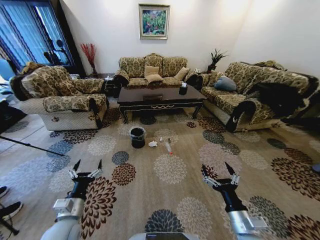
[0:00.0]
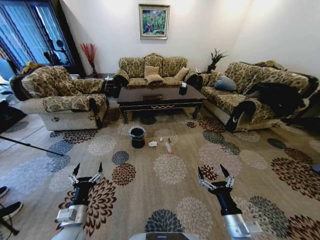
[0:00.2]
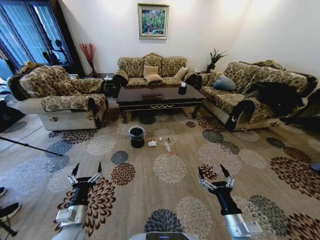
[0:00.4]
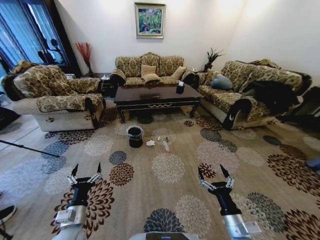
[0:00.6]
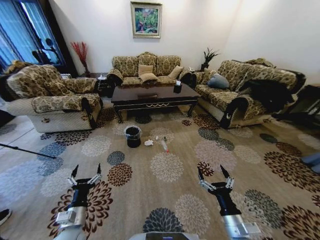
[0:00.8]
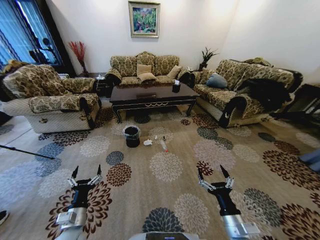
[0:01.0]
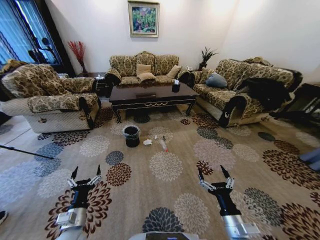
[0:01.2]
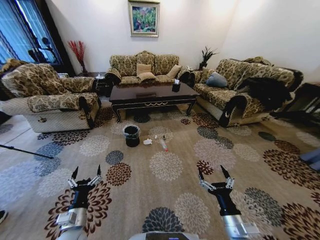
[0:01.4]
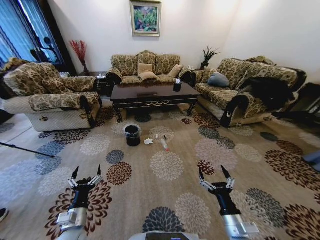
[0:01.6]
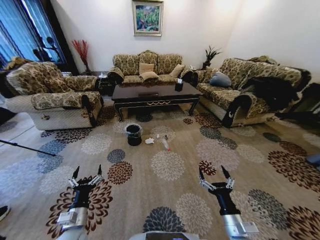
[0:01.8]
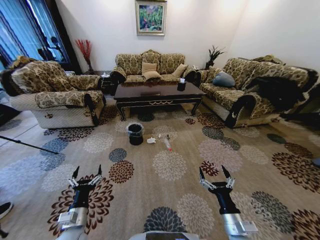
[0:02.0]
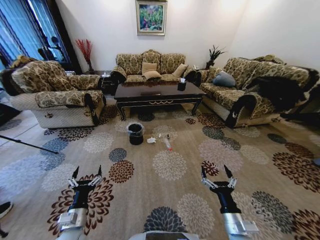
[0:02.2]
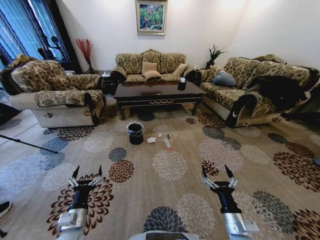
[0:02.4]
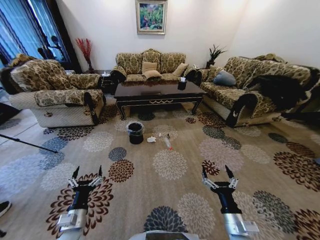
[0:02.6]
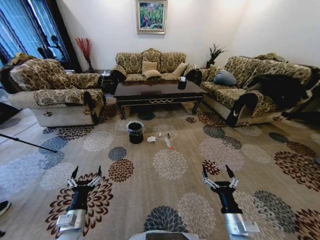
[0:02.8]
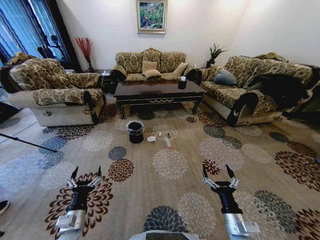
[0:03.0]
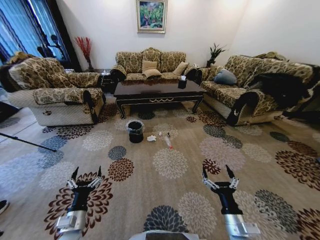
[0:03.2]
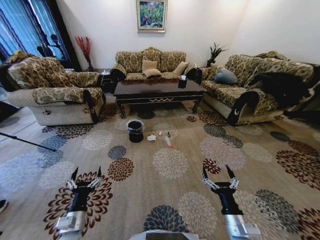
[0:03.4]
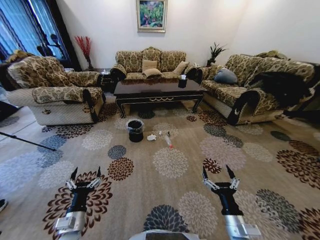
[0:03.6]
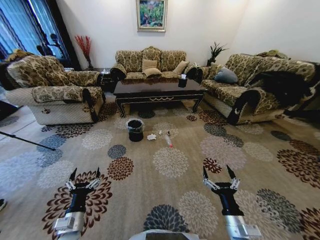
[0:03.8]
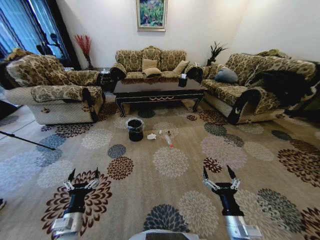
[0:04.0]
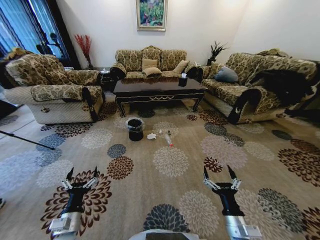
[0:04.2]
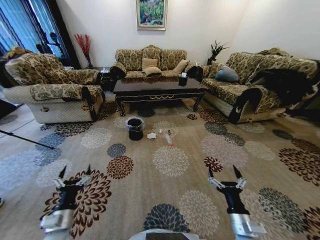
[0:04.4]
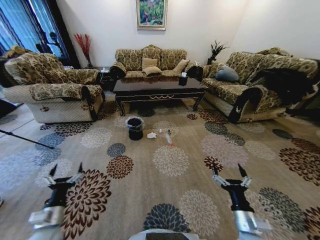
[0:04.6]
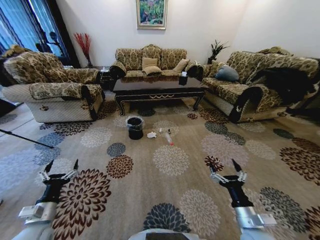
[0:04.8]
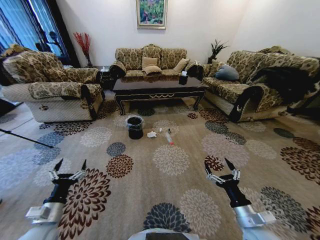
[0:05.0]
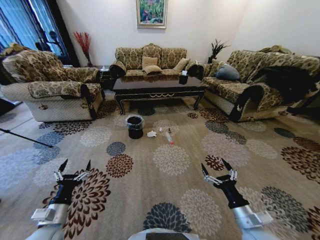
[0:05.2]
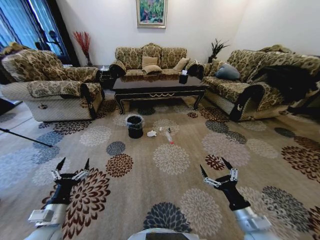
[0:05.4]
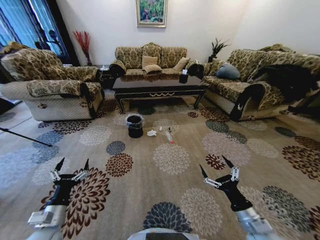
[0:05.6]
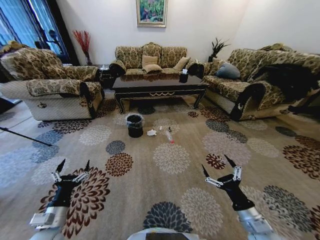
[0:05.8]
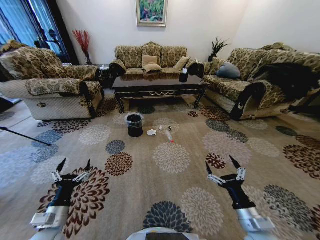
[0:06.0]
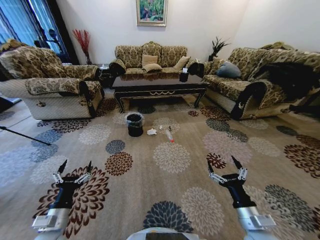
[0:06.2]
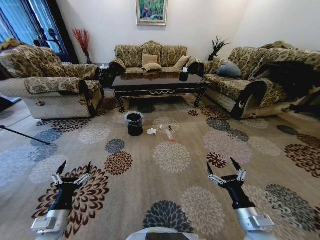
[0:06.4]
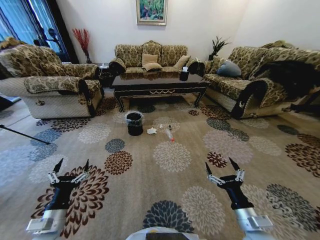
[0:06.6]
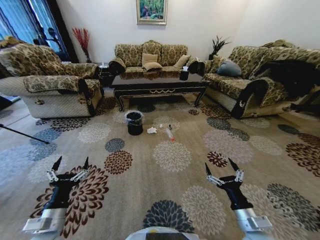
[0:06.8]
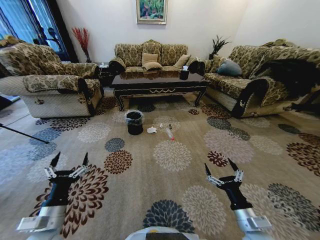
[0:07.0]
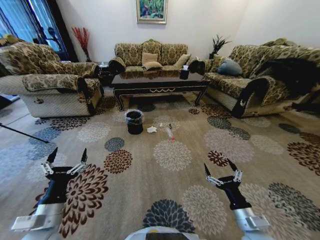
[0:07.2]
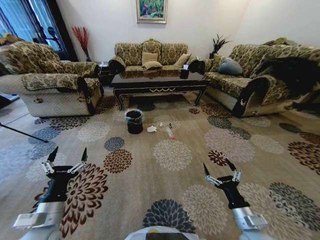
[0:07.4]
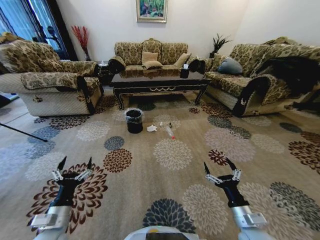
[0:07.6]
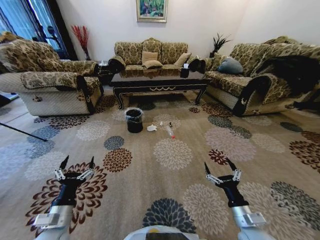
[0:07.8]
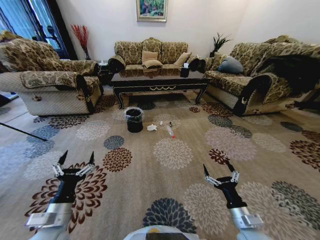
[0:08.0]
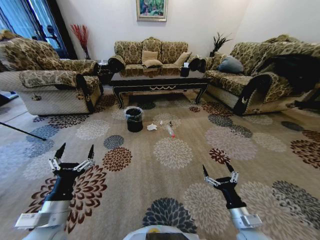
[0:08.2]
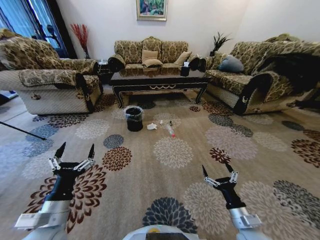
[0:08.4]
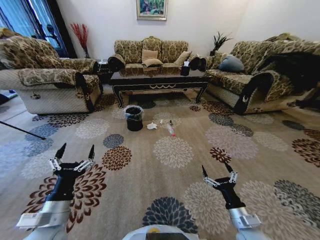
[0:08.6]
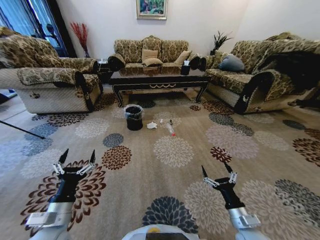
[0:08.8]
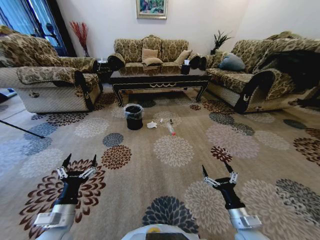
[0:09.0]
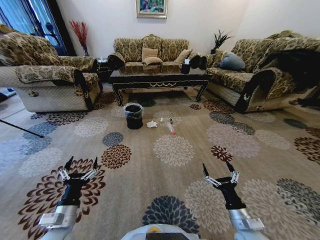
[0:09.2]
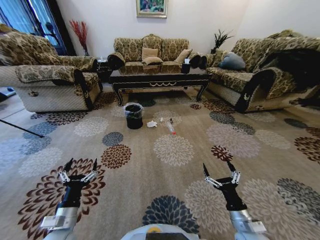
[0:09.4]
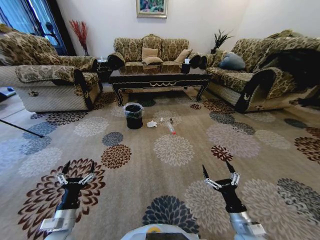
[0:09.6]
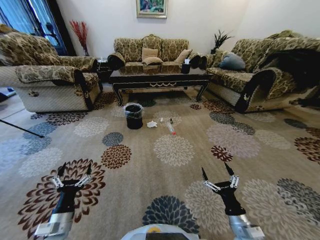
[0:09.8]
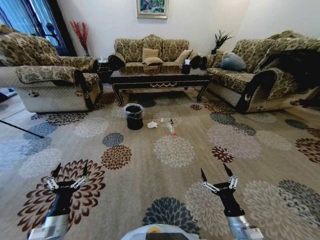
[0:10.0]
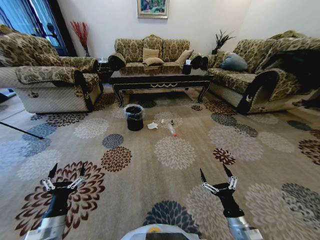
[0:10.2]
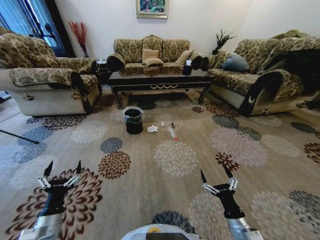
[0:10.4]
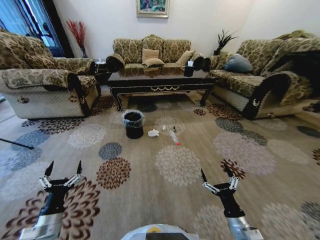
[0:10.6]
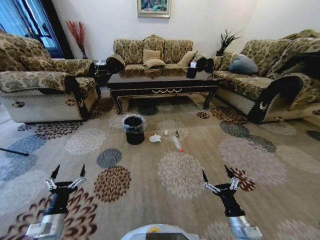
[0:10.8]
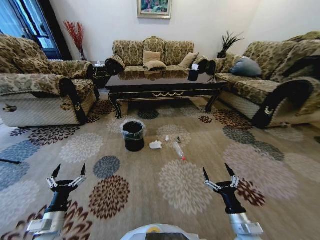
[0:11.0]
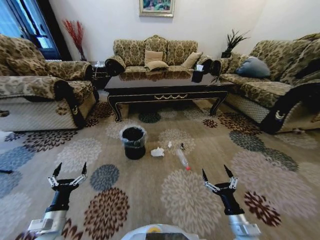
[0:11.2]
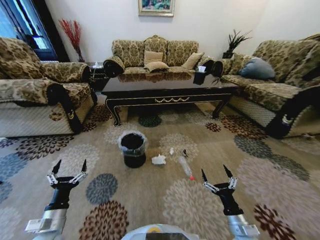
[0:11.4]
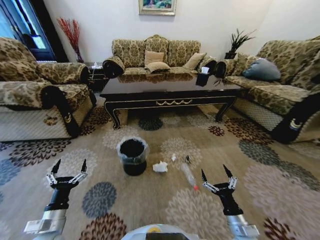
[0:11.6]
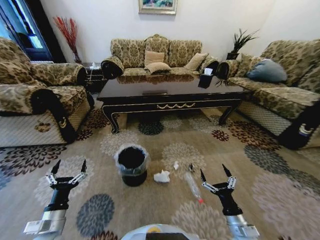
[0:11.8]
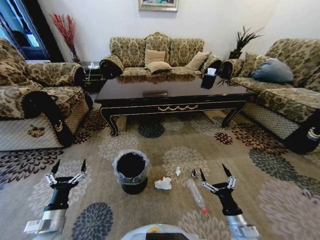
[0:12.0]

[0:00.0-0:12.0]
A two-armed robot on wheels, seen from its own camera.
Task of the whole recording: Move to the front of the table and pick up the trash from the floor, then place it into the trash bin.
0:04.4 to 0:06.0: The right gripper changes place by roughly 5 cm.
0:09.0 to 0:10.4: The left gripper moves some 5 cm.

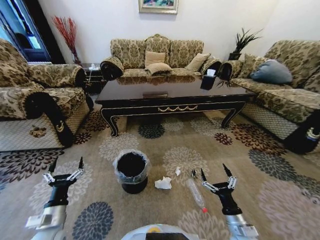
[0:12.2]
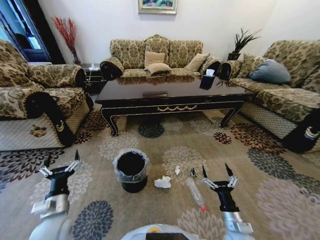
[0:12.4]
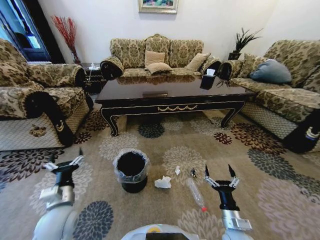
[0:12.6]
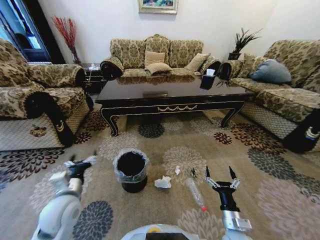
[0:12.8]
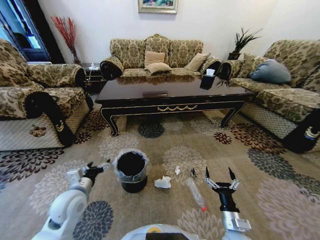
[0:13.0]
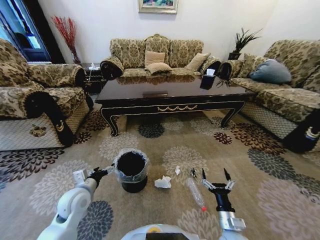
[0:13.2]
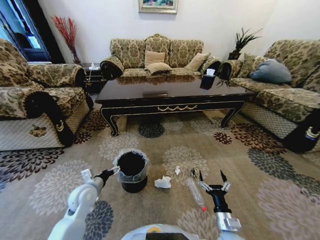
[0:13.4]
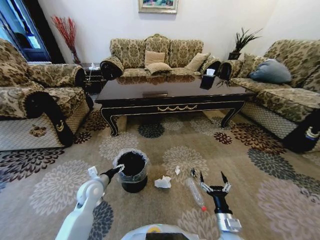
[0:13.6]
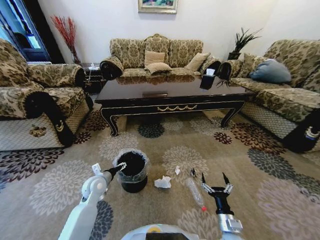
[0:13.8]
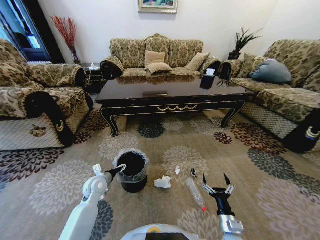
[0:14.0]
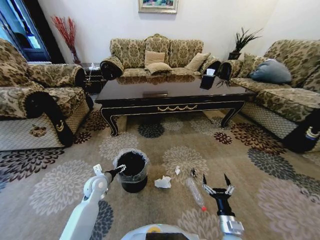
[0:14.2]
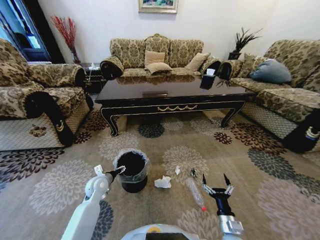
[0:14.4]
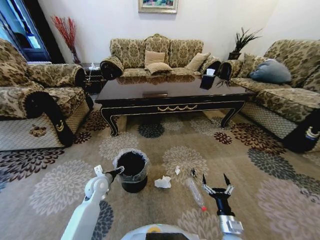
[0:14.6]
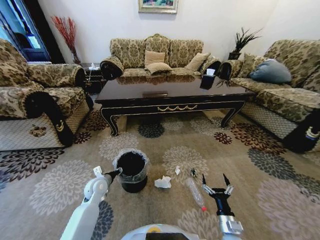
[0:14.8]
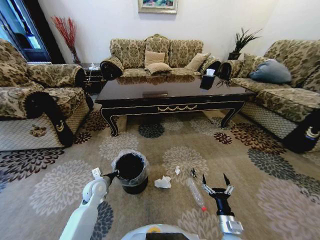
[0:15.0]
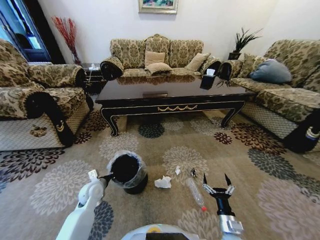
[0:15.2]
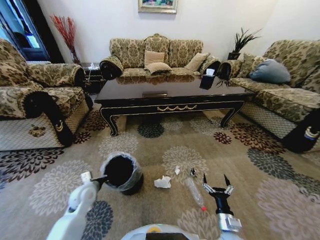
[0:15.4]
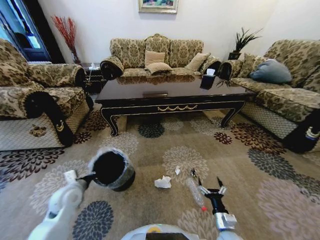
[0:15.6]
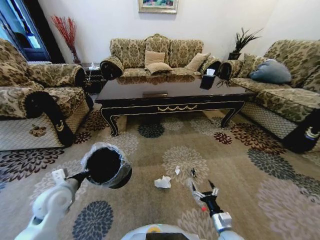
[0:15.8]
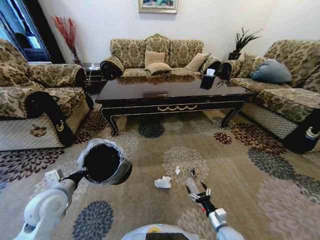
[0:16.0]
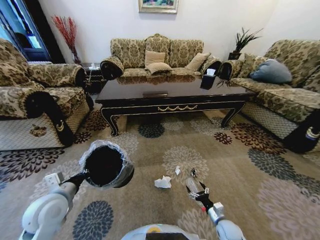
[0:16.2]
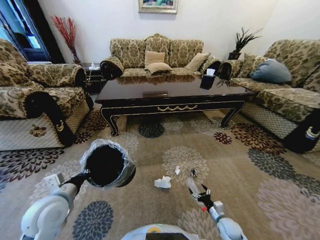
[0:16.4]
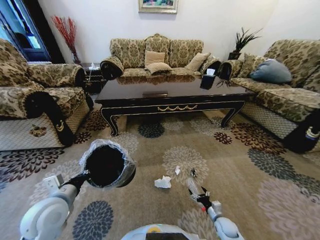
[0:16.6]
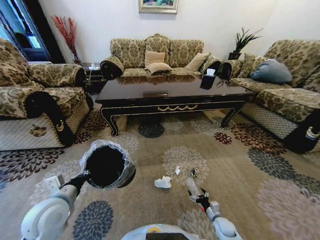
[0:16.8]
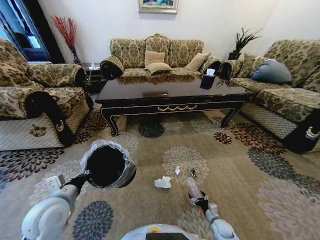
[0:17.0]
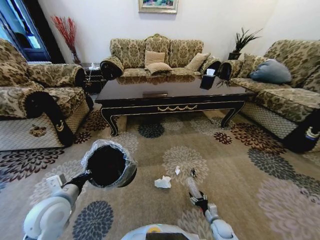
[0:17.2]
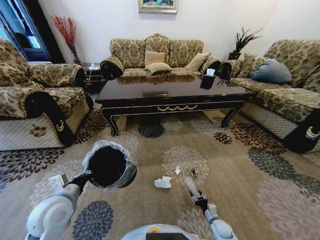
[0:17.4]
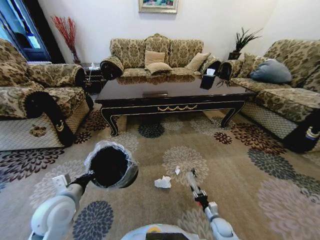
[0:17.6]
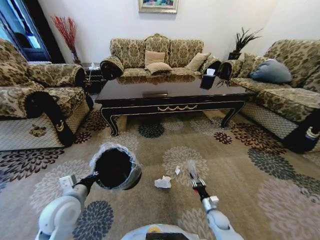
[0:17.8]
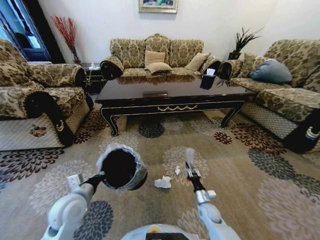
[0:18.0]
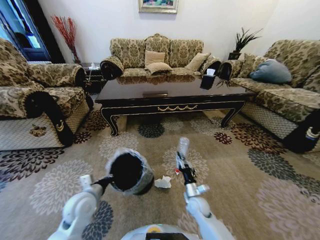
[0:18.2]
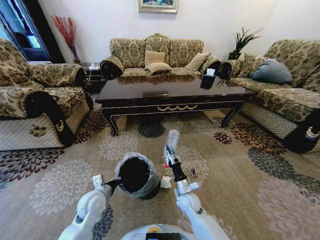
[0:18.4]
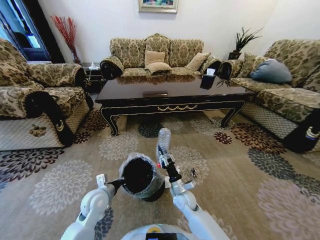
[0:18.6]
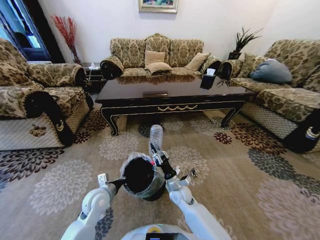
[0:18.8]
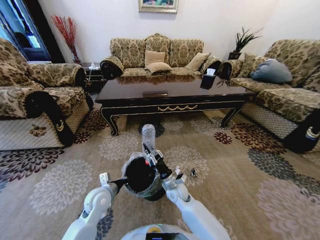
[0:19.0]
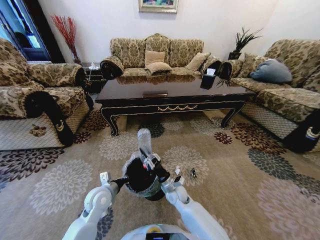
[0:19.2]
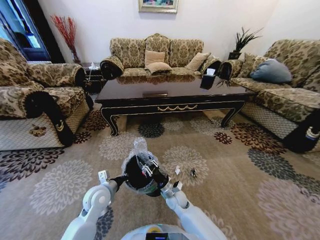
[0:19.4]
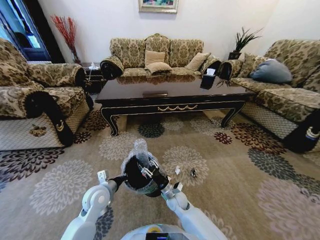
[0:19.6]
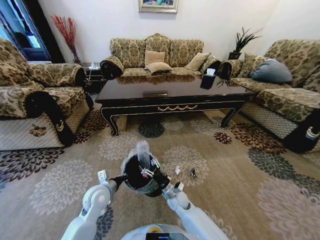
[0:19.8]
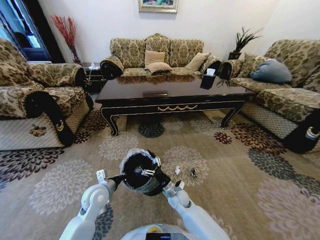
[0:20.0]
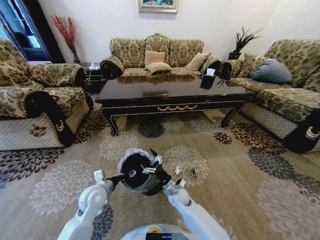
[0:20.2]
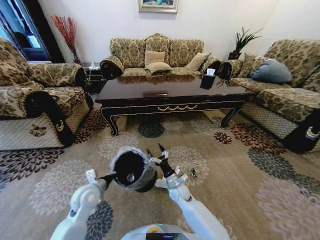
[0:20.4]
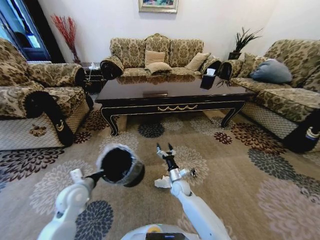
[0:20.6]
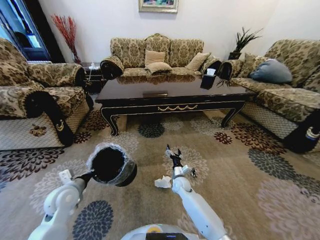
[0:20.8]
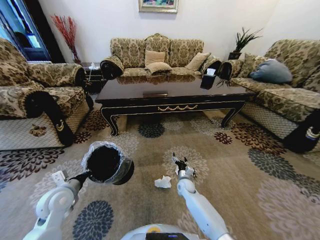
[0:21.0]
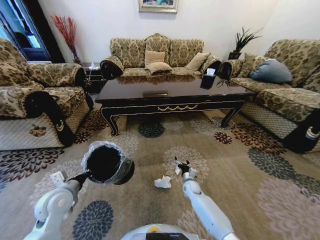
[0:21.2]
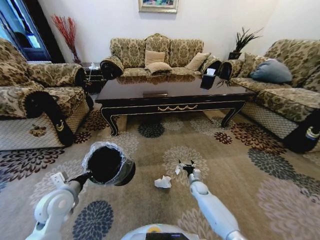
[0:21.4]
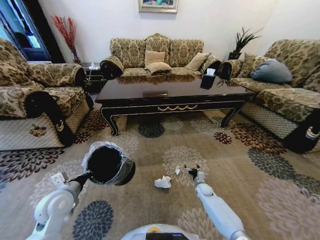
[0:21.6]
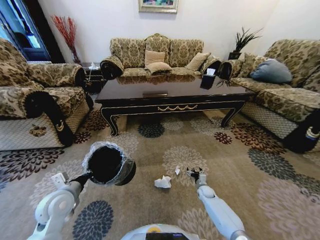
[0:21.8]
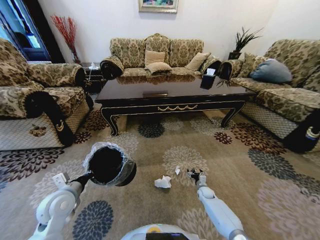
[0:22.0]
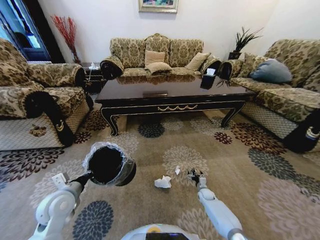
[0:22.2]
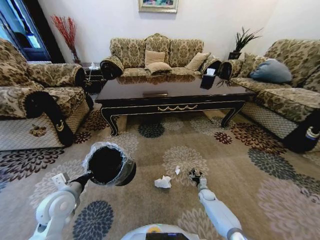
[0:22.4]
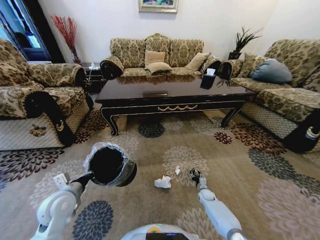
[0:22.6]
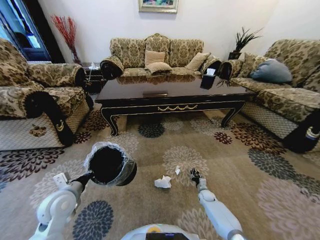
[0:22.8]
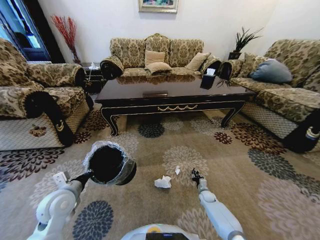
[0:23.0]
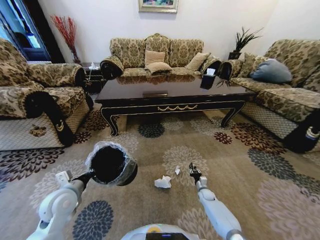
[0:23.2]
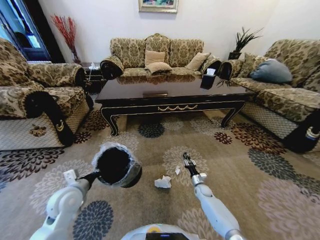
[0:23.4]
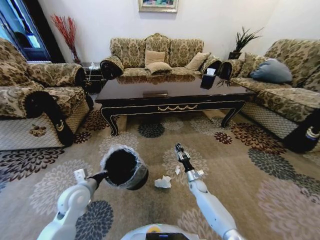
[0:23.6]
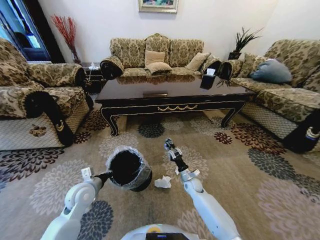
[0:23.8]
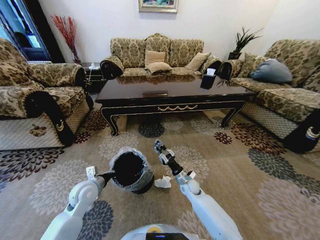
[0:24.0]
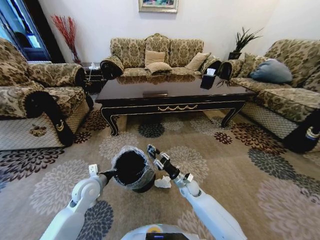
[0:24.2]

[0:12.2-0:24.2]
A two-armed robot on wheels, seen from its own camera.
Task of the whole recording: Move to the front of the table and pick up the trash from the floor, then place it into the trash bin.
0:12.2 to 0:13.8: The left gripper is displaced forward and to the right by about 20 cm.
0:13.8 to 0:15.2: The left gripper closes up.
0:15.2 to 0:16.6: The left gripper shifts approximately 20 cm upward and backward; the right gripper is displaced downward, forward and to the right by about 15 cm.
0:16.6 to 0:18.2: The left gripper shifts some 5 cm downward; the right gripper goes approximately 20 cm to the left, upward and forward, and closes.
0:18.2 to 0:19.8: The right gripper heads to the left, covering about 10 cm, and opens its fingers, while the left gripper moves approximately 5 cm.
0:19.8 to 0:21.2: The right gripper is displaced to the right, forward and downward by about 15 cm. The left gripper travels to the left and upward by roughly 10 cm.
0:21.2 to 0:22.6: The right gripper shifts approximately 15 cm to the right and downward.
0:22.6 to 0:24.2: The right gripper heads upward and to the left, covering approximately 25 cm, and closes, while the left gripper is displaced forward and to the right by about 10 cm.
